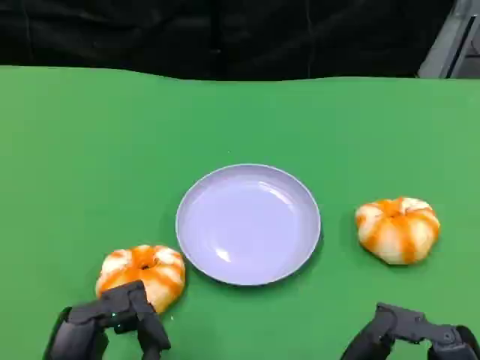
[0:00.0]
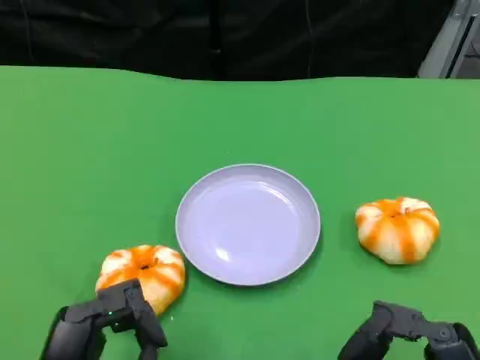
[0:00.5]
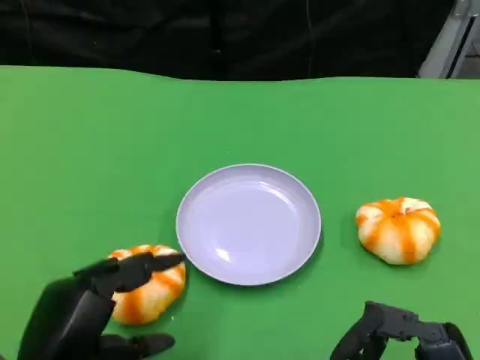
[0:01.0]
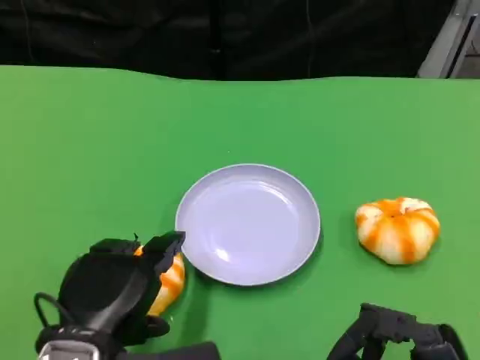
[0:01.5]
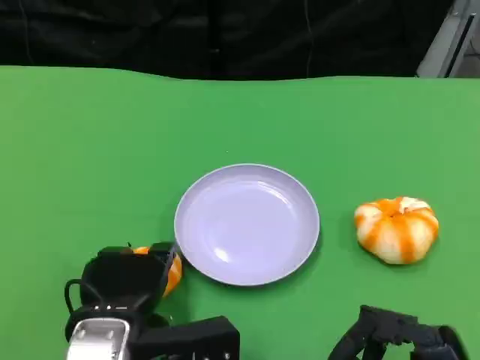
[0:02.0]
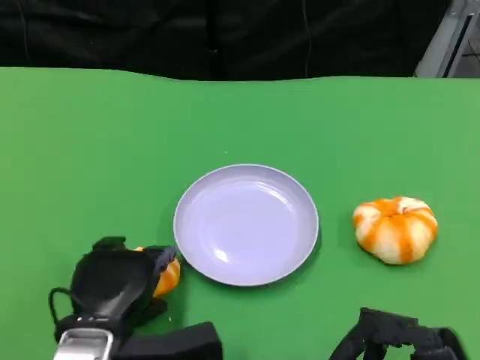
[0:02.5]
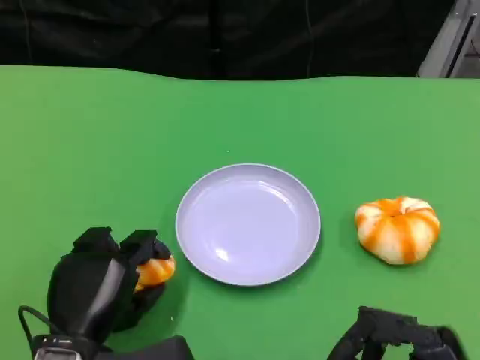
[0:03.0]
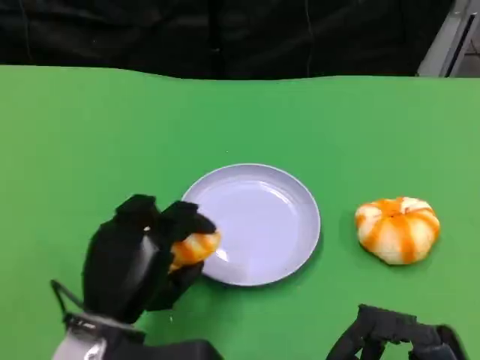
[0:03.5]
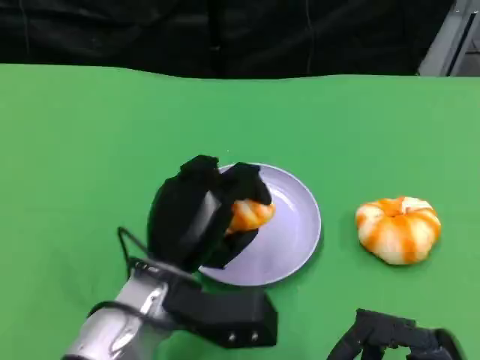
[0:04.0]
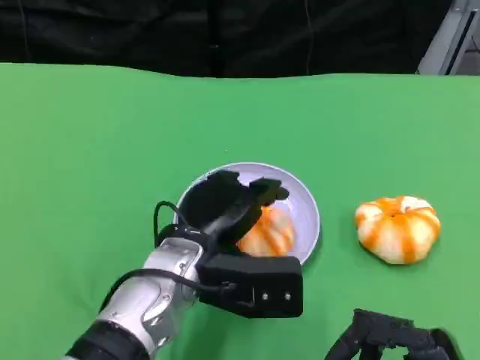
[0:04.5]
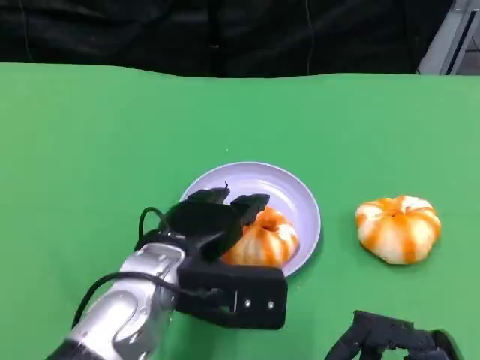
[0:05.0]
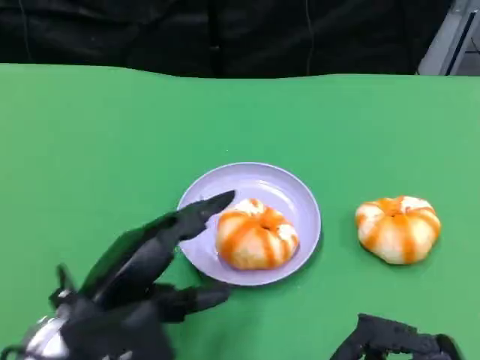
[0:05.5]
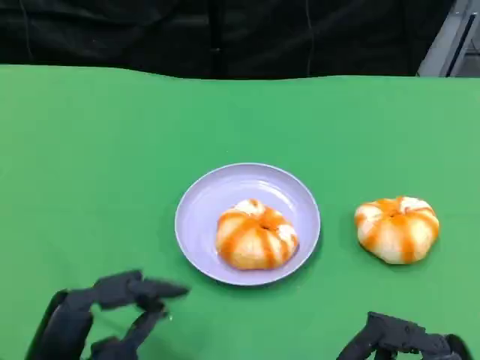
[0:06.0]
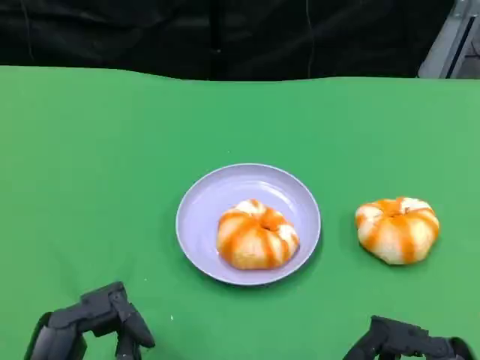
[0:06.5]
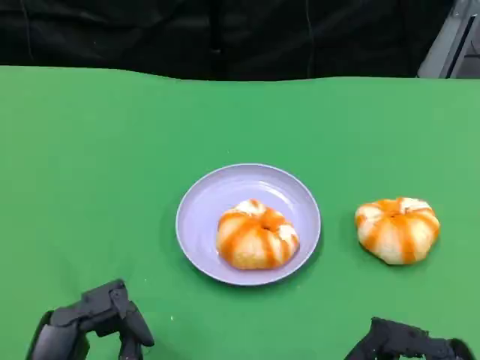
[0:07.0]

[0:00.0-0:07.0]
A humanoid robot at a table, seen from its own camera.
Task of the whole recording: Grasp the bread from the table and place it into the plate.
0:00.0 to 0:02.0: The left hand moves forward, about 10 cm.
0:03.5 to 0:05.0: The left hand ends up some 5 cm from where it was.
0:05.0 to 0:07.0: The left hand travels backward and to the left by some 15 cm.

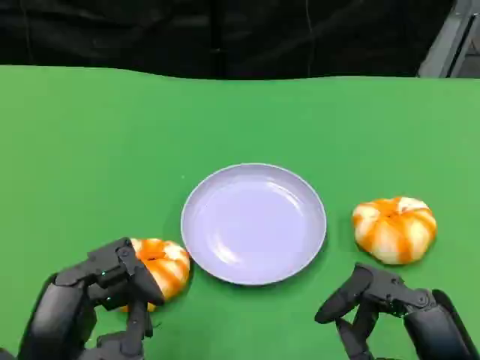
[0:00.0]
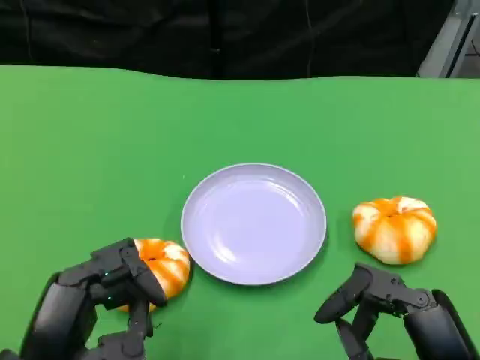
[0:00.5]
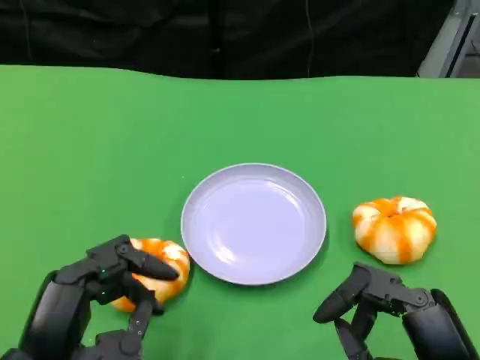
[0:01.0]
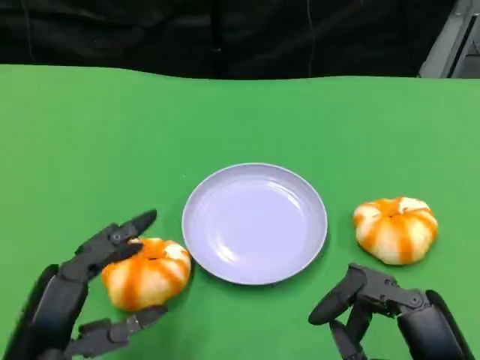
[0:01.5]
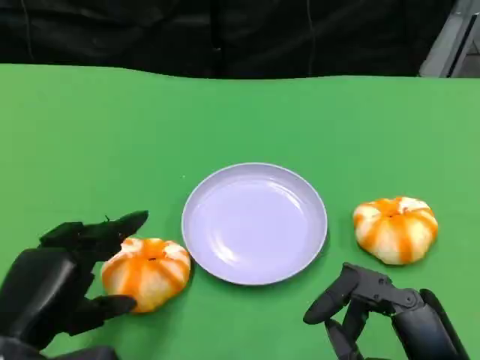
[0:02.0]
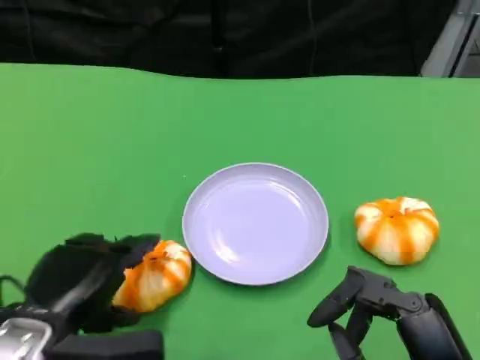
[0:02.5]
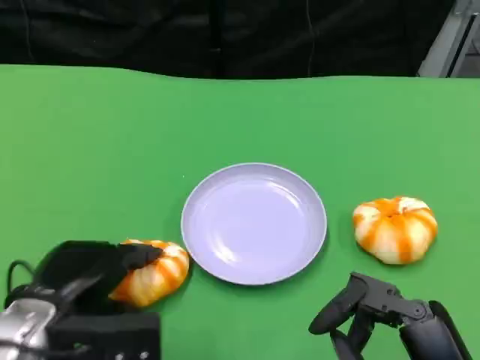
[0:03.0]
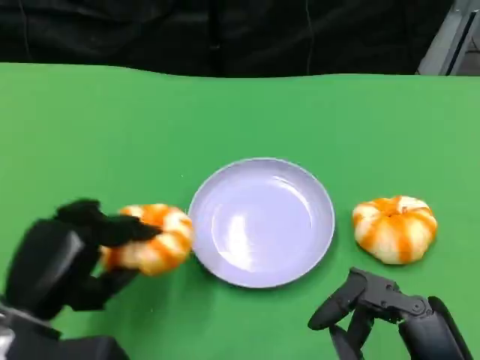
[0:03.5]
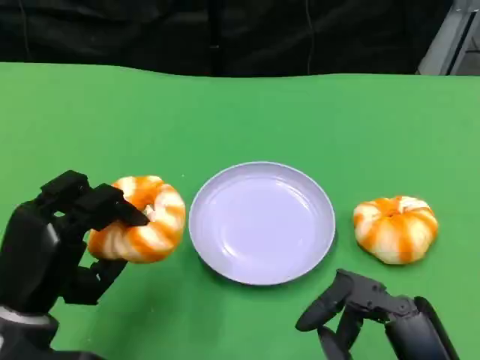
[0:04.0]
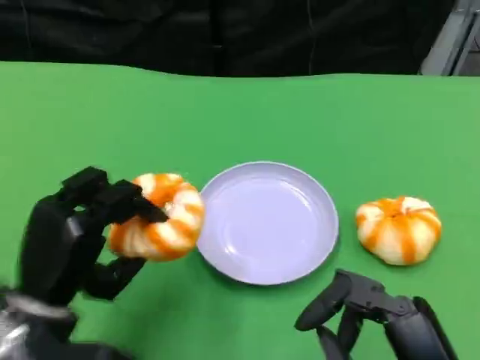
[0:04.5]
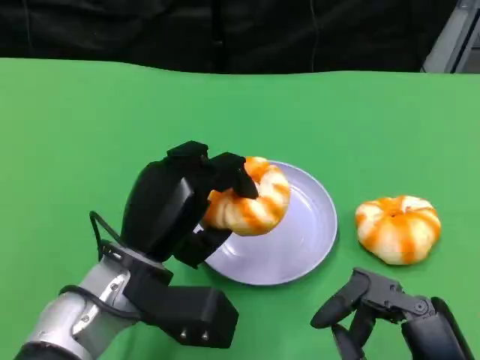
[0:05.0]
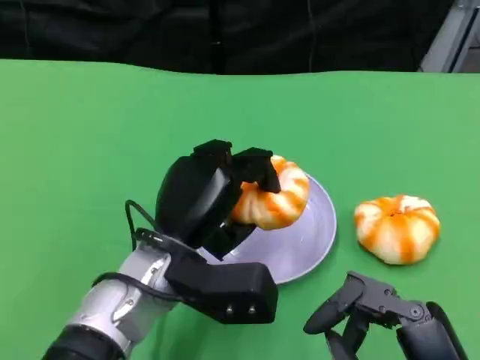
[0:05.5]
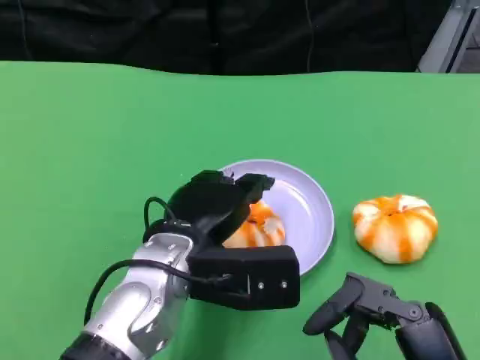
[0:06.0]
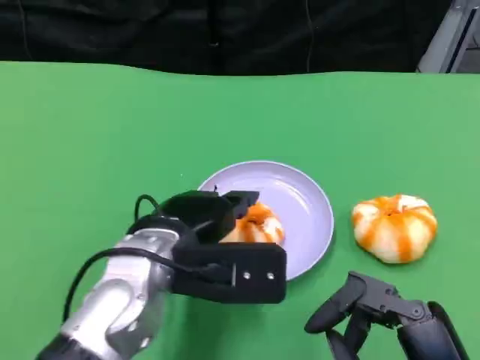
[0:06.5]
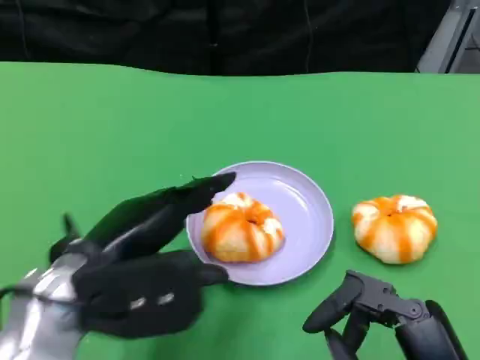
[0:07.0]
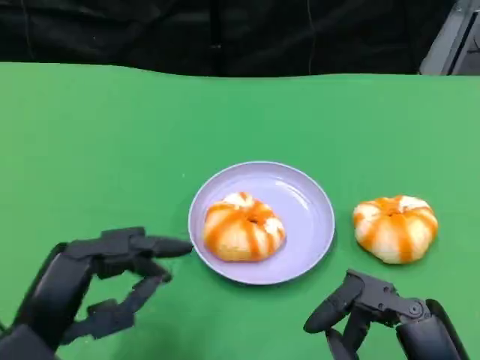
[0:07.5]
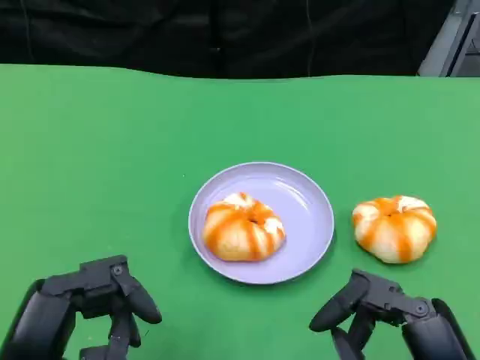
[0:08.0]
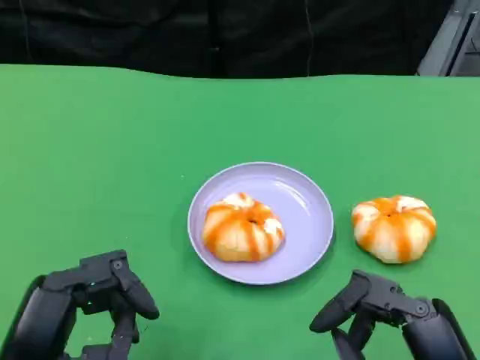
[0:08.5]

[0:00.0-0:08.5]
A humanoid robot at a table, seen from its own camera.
Task of the whole recording: Grasp the bread from the table and place it into the plate.
0:04.0 to 0:06.5: The left hand shifts approximately 15 cm to the right and upward.
0:06.5 to 0:08.5: The left hand heads backward and to the left, covering about 15 cm.

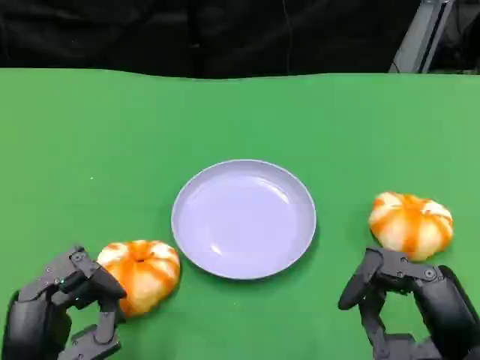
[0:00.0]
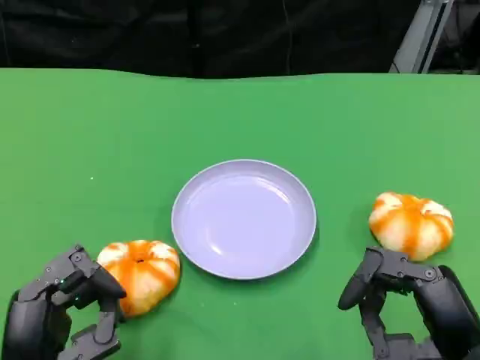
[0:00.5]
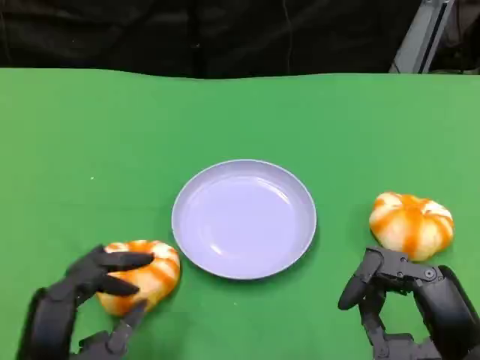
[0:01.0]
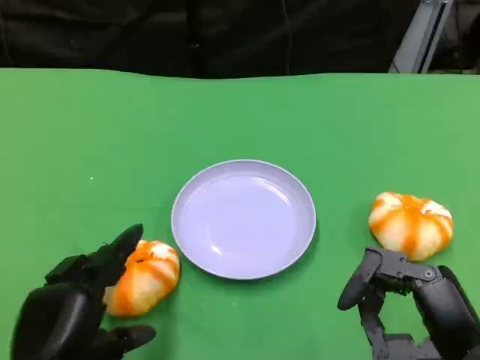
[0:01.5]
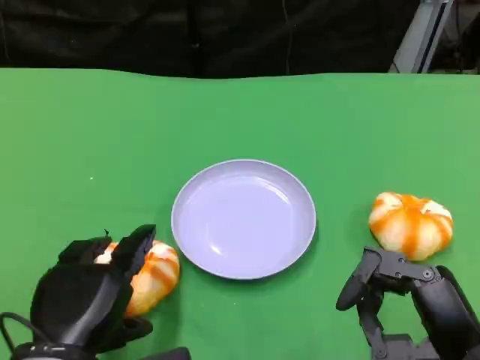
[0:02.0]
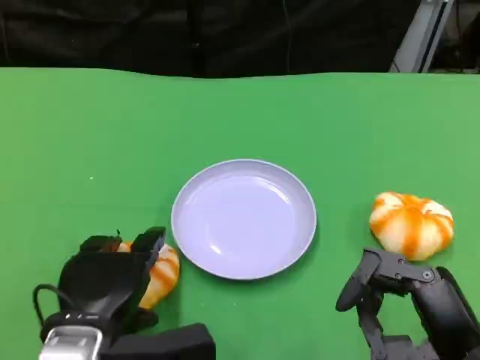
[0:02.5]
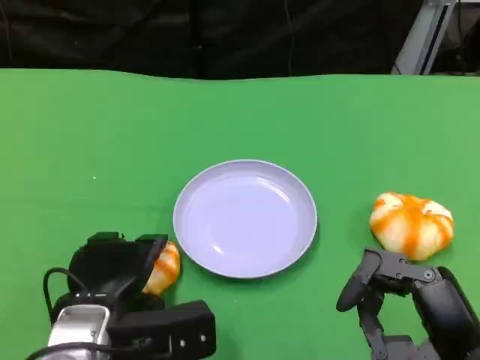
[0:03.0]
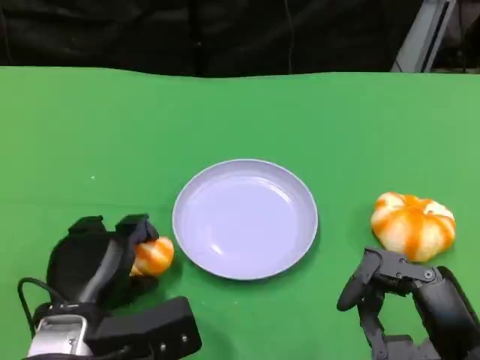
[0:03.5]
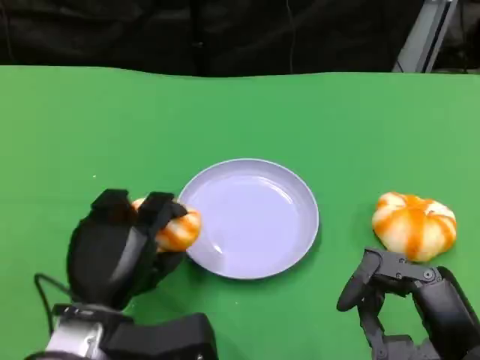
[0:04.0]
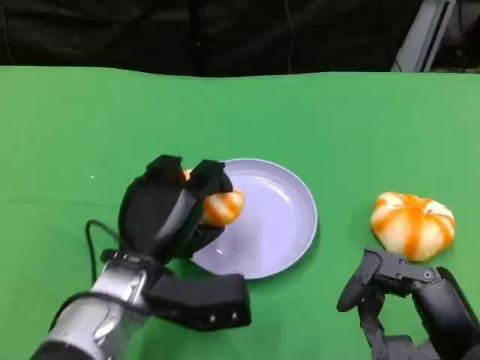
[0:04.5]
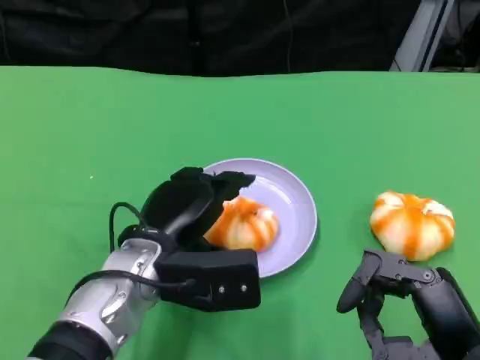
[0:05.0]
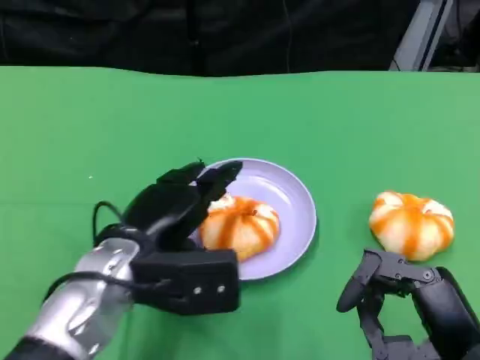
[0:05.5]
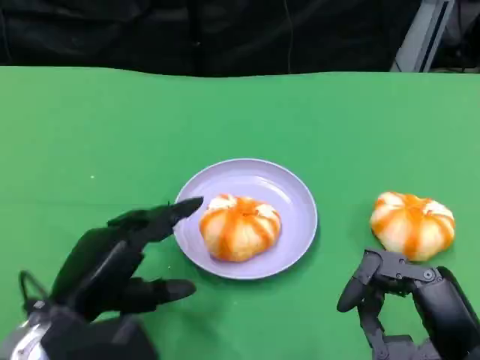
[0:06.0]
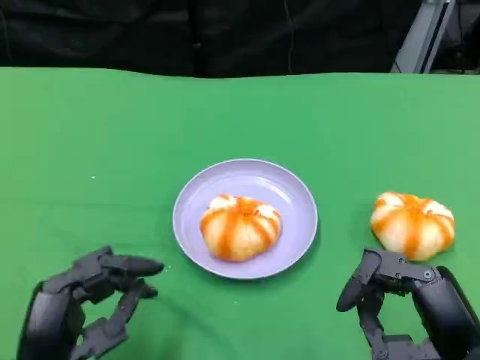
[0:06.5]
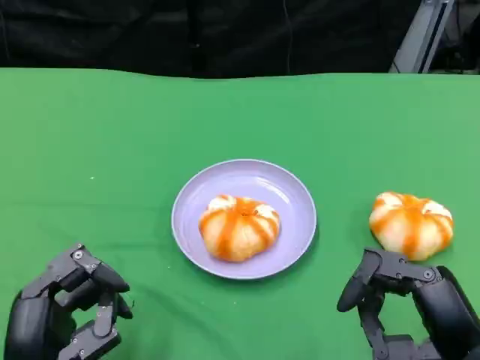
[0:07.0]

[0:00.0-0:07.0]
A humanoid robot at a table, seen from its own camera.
Task of the whole recording: Grasp the bread from the table and place it into the plate.
0:02.0 to 0:03.5: The left hand moves roughly 5 cm.
0:03.5 to 0:05.0: The left hand is displaced to the right and forward by some 10 cm.
0:05.0 to 0:07.0: The left hand shifts some 15 cm backward and to the left.

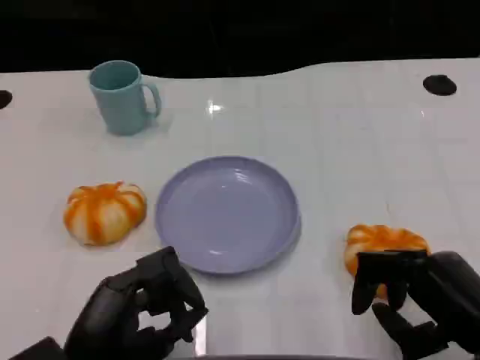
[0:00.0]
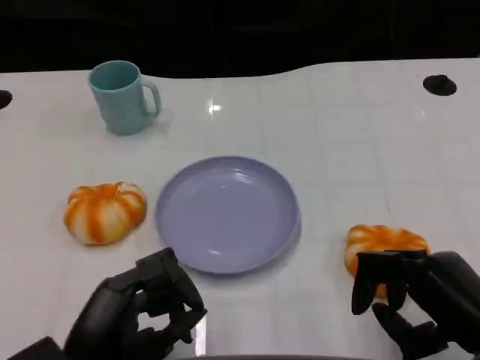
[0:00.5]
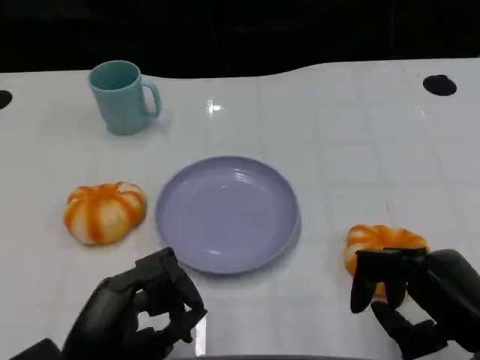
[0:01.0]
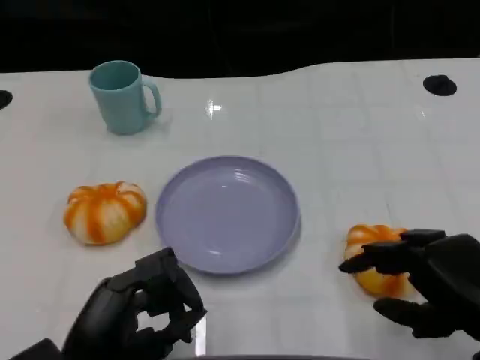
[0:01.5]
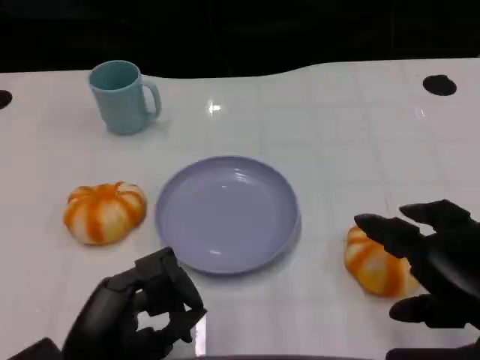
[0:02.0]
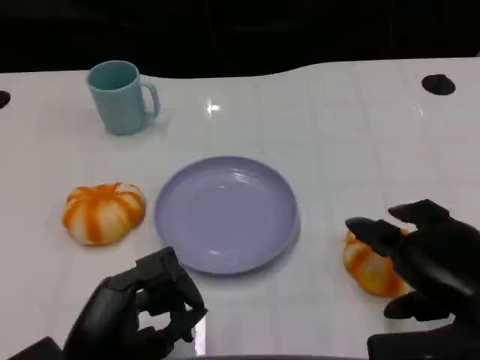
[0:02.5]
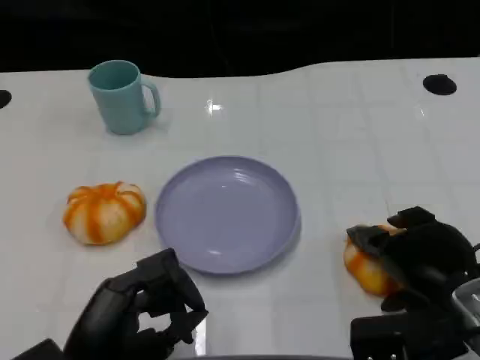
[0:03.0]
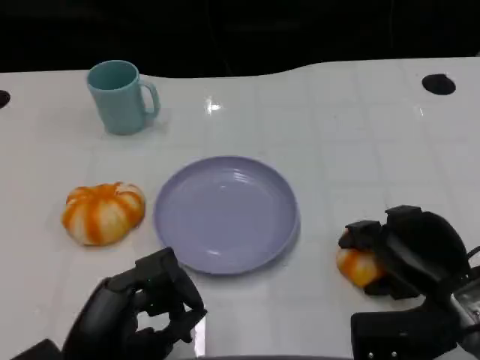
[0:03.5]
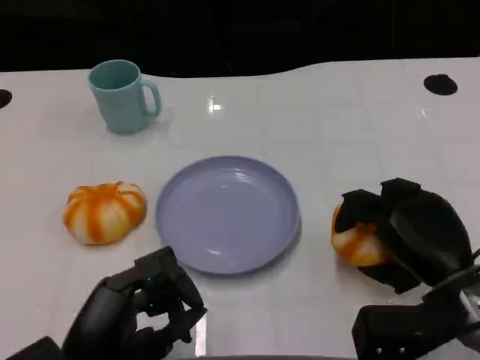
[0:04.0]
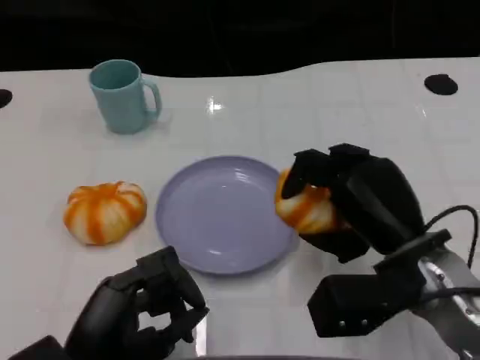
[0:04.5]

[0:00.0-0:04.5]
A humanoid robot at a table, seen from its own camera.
Task of the whole recording: Grasp the bread from the table and place it into the plate.
0:00.0 to 0:02.0: The right hand heads upward, covering some 5 cm.
0:02.0 to 0:04.5: The right hand moves forward and to the left, roughly 10 cm.
